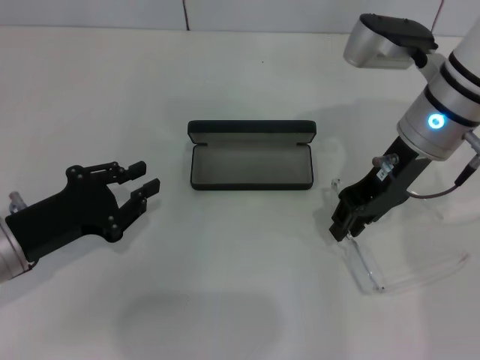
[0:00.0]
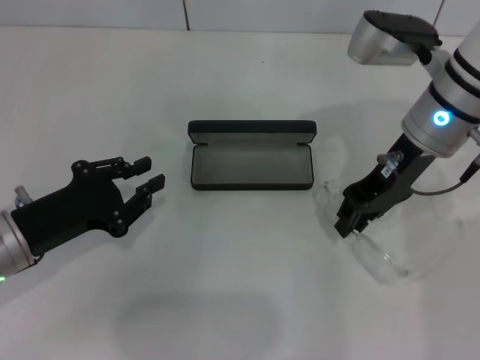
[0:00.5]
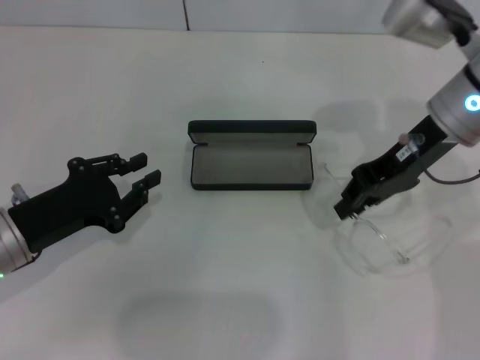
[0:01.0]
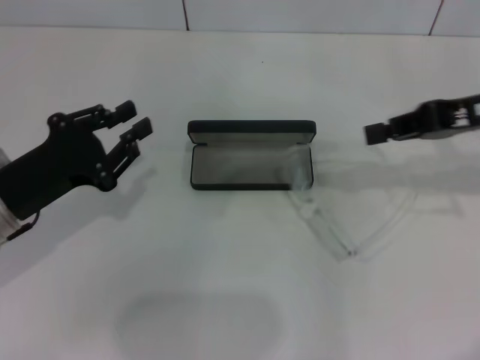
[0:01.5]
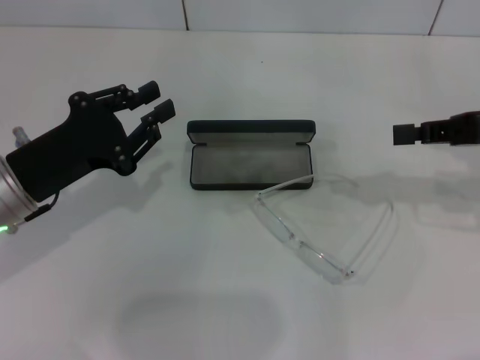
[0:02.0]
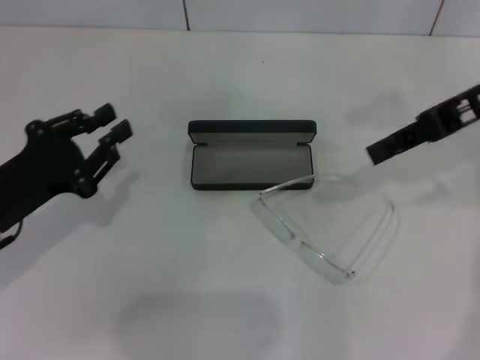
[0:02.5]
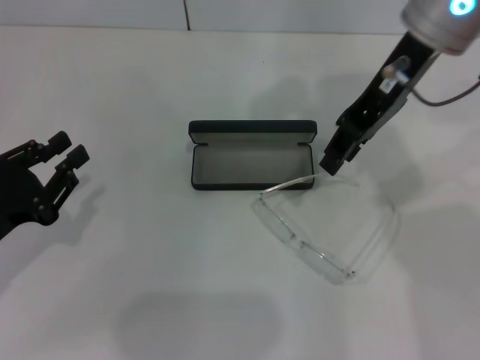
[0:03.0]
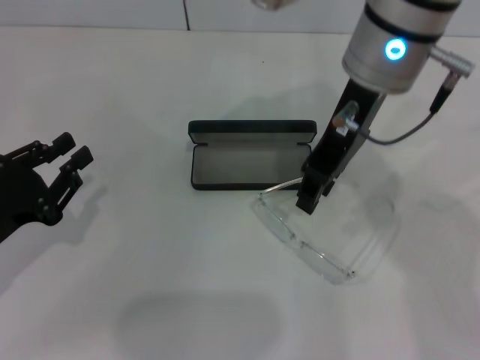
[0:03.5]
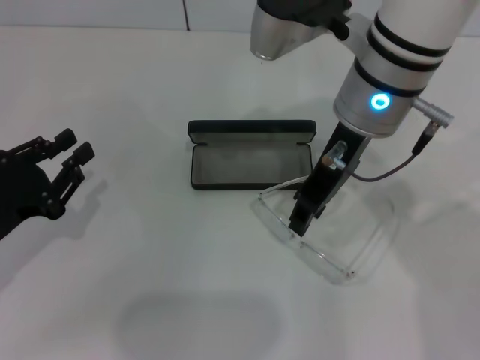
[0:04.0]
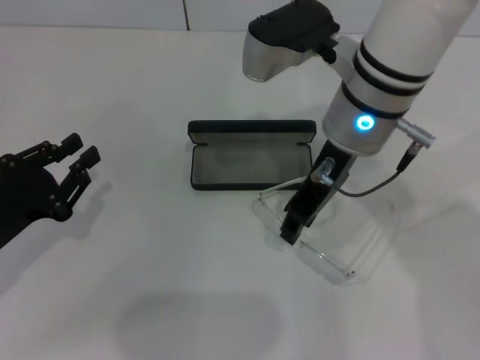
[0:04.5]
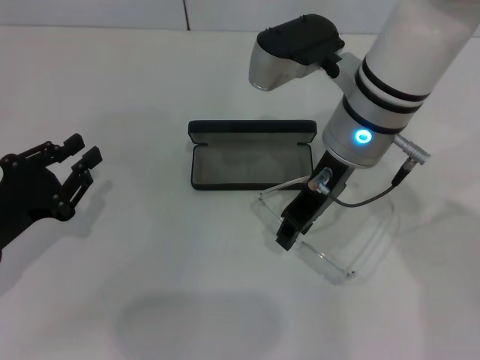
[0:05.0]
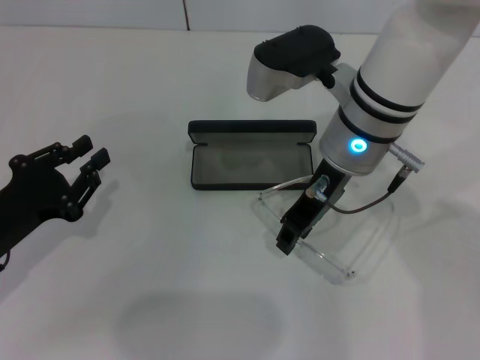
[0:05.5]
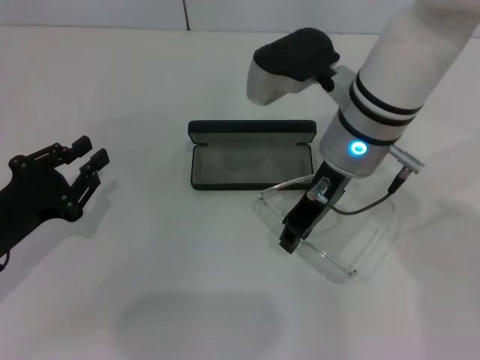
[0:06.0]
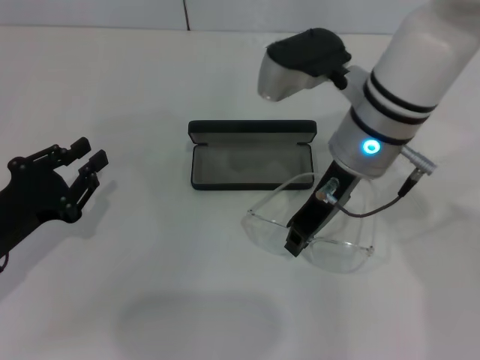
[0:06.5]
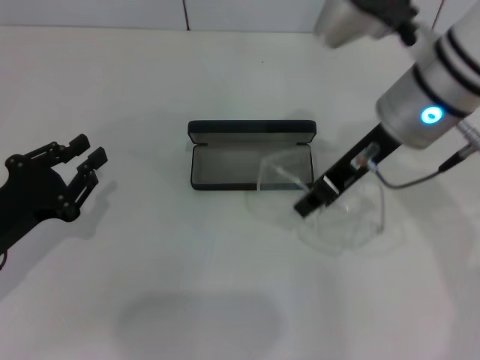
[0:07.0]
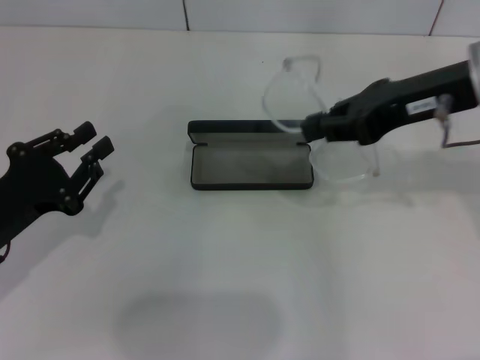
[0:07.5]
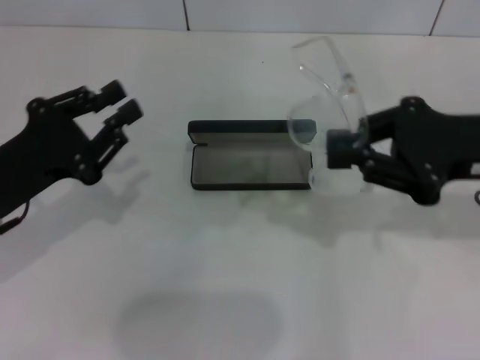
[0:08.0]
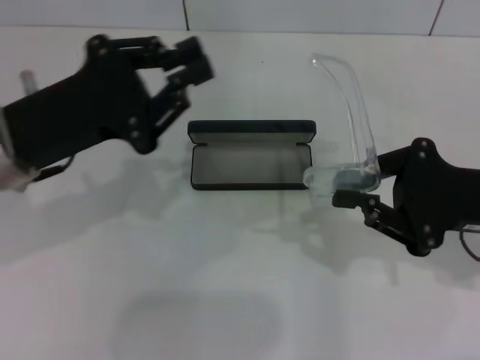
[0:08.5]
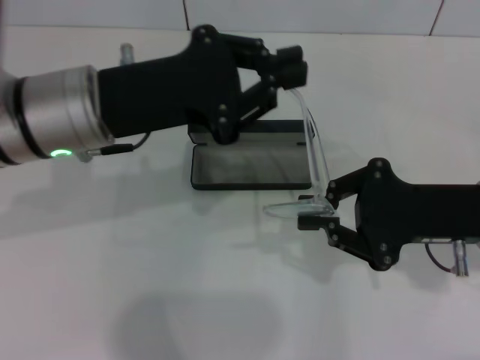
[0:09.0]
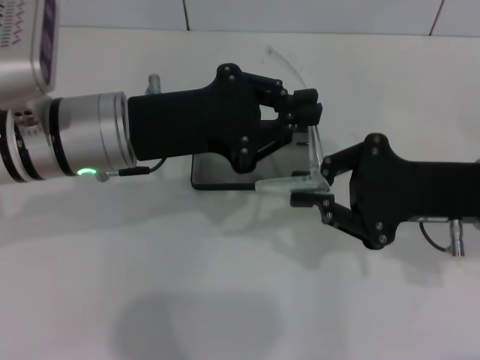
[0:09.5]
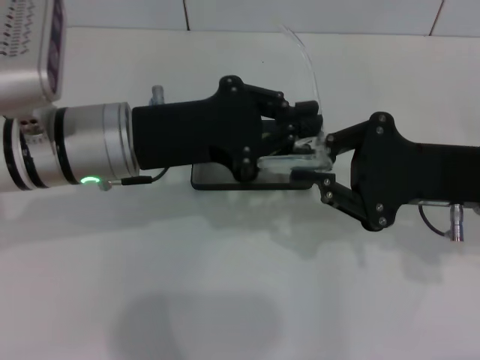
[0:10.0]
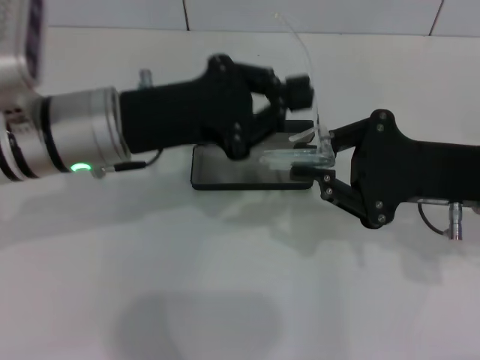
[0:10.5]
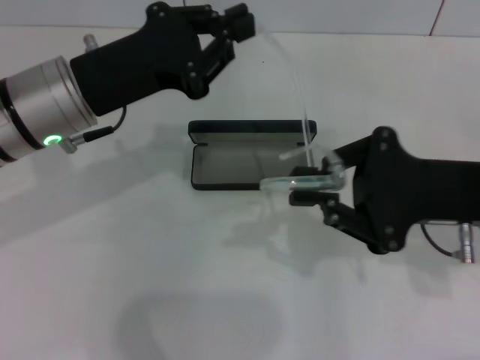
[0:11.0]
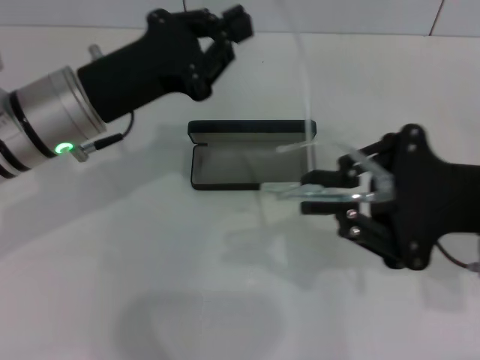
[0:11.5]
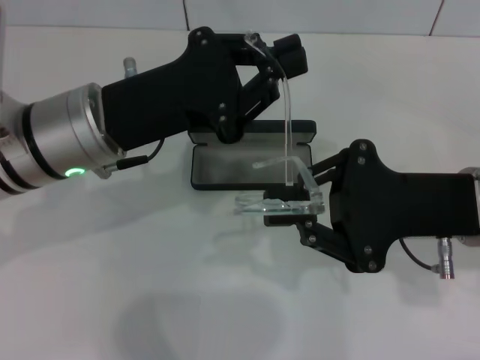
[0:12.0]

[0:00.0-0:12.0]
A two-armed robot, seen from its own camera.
Step, 0:00.0 to 0:06.0: Grab the eyeglass frame with your right hand.
0:00.0 to 0:02.0: The left gripper ends up roughly 5 cm from where it was; the right gripper is displaced to the right and backward by about 15 cm.
0:02.0 to 0:04.0: The left gripper shifts approximately 10 cm to the left and backward; the right gripper goes about 20 cm to the left, and opens.
0:04.0 to 0:06.0: The right gripper heads downward, covering about 5 cm.
0:06.0 to 0:08.0: The right gripper travels to the right by about 15 cm. The left gripper shifts about 5 cm upward.
0:08.0 to 0:10.0: The left gripper shifts approximately 15 cm to the right, forward and upward.

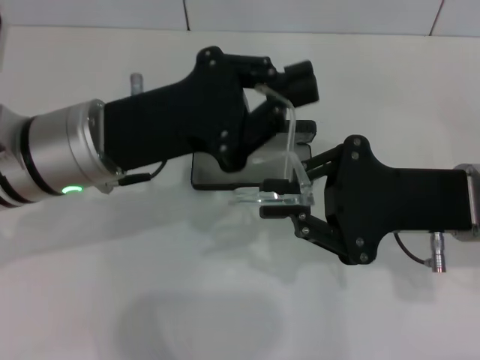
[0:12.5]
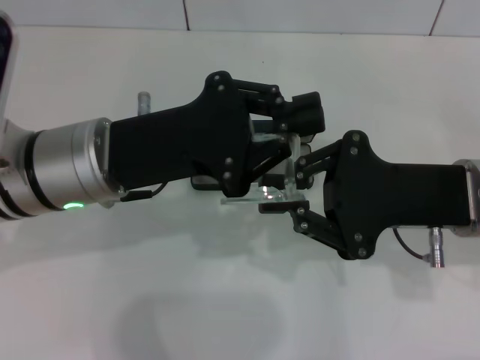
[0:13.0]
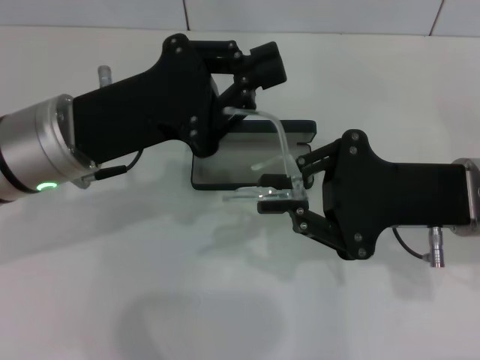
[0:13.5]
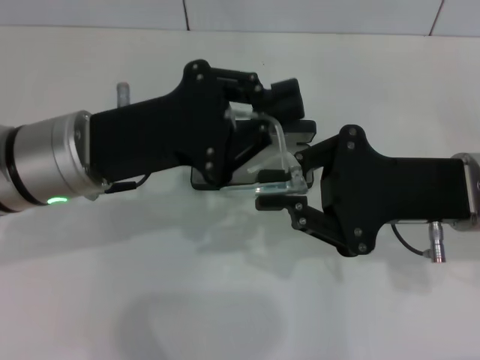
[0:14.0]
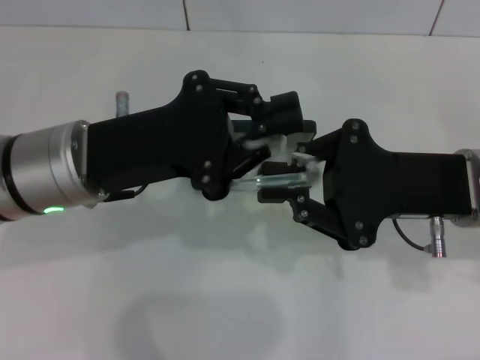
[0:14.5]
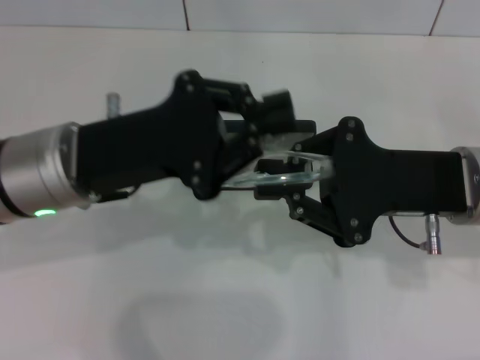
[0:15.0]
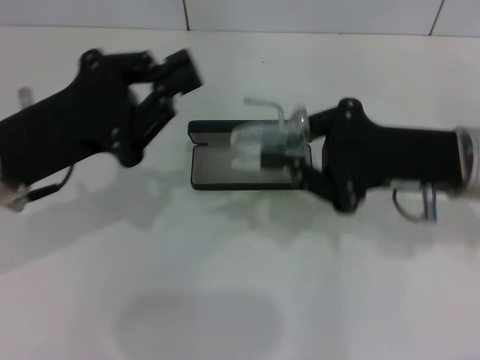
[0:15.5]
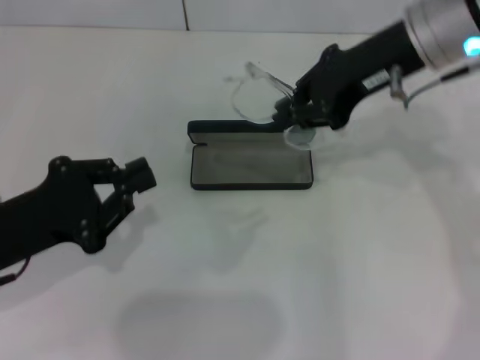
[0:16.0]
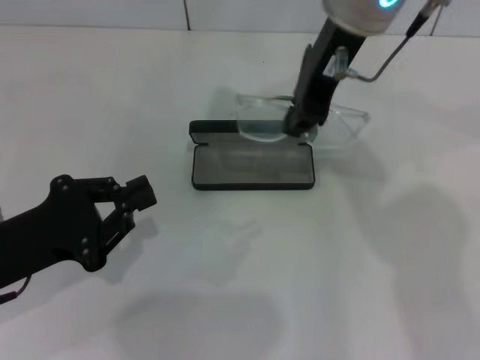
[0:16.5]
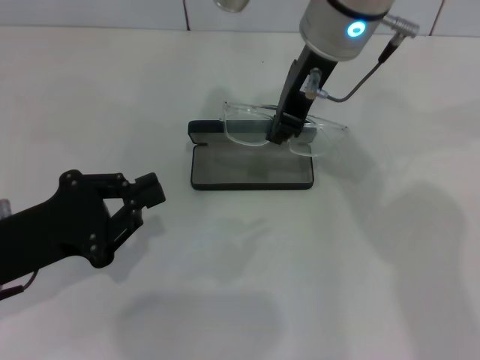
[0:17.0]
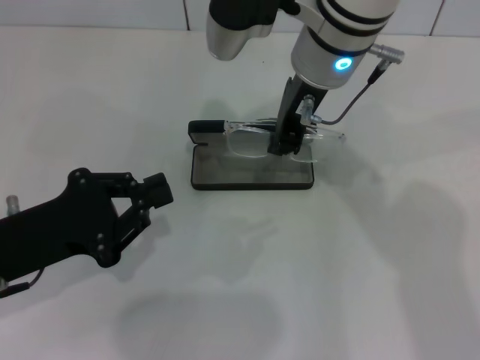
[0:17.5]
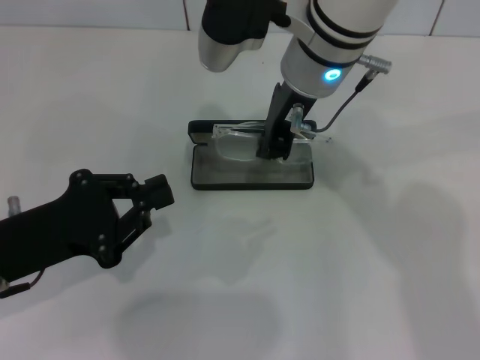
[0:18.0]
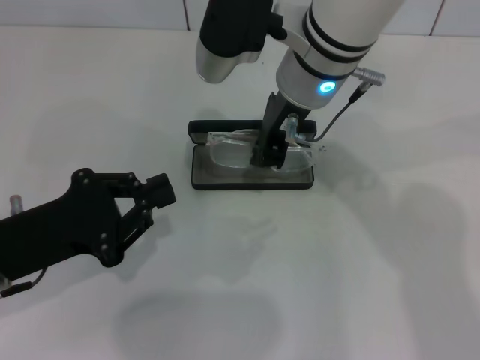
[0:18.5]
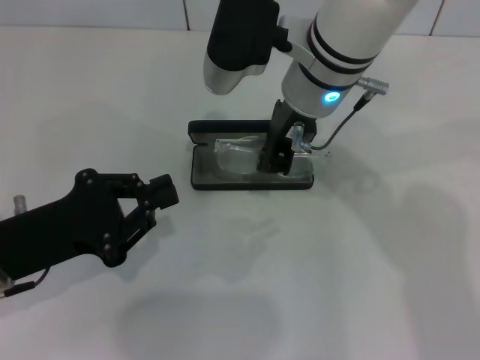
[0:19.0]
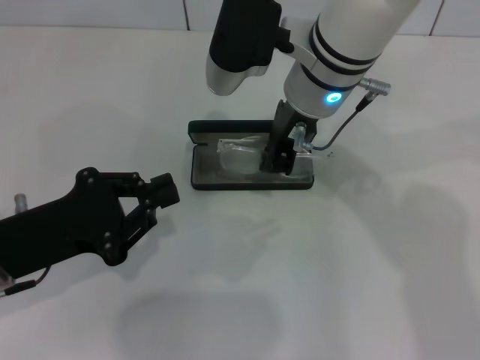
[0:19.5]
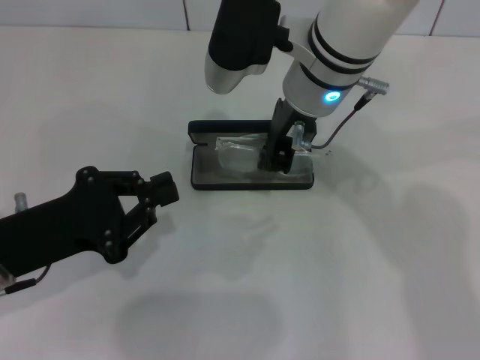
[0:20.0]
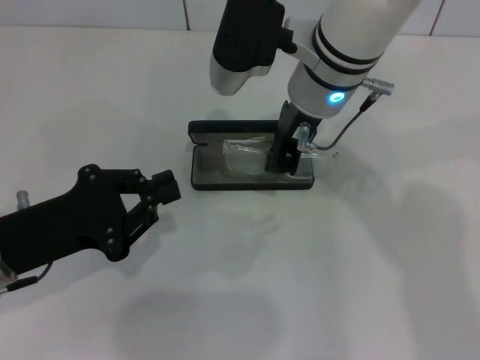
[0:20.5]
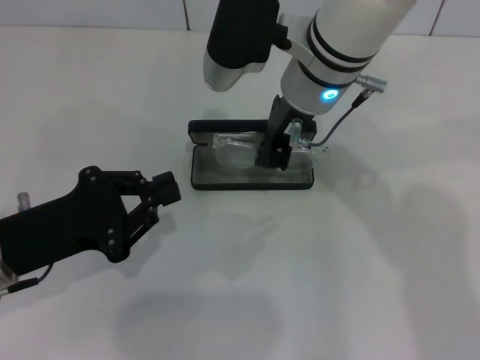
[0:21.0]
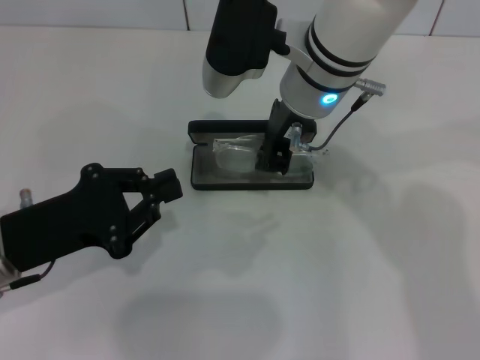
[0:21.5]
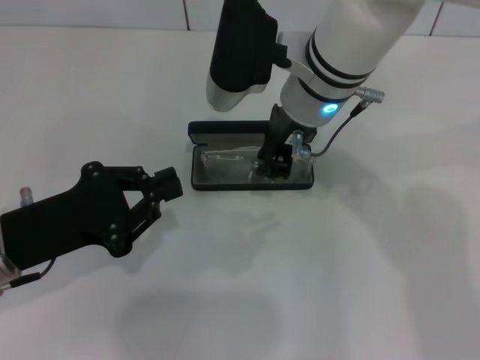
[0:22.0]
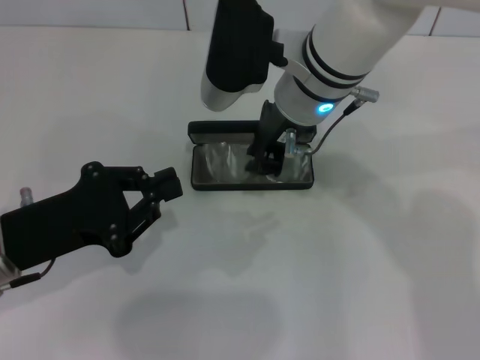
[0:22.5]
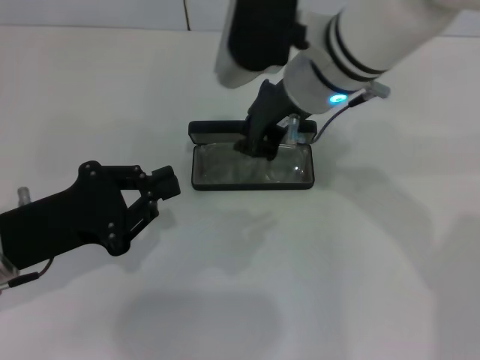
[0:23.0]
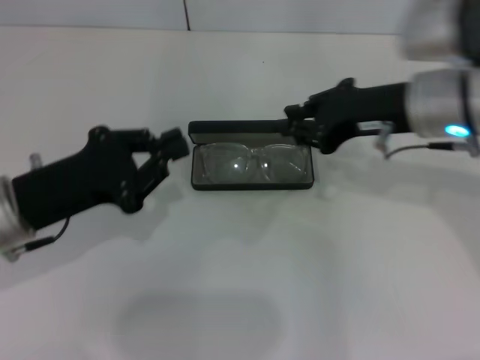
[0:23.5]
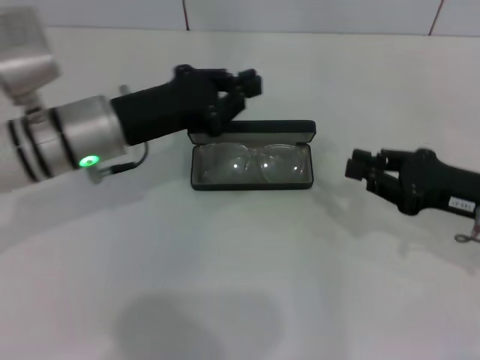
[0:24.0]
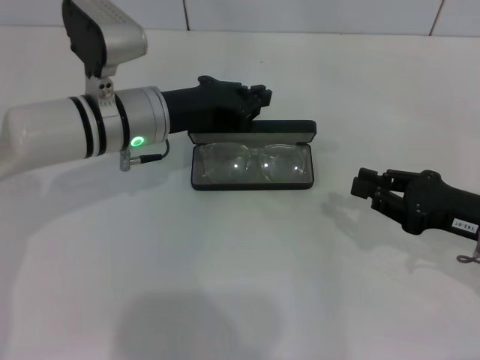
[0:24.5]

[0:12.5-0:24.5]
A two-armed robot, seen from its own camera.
Step, 0:12.5 to 0:14.5: Fold the frame with your left hand.
Step, 0:15.0 to 0:22.5: Put the glasses into the case with your right hand.
0:12.5 to 0:14.5: The grippers stay close to where they were, moving slightly.
0:14.5 to 0:16.5: The right gripper heads upward, to the left and forward, covering some 20 cm. The left gripper shifts about 15 cm to the left, backward and downward.
0:16.5 to 0:18.5: The right gripper heads downward, covering approximately 5 cm.
0:18.5 to 0:22.5: The grippers stay close to where they were, moving slightly.
0:22.5 to 0:24.5: The left gripper moves forward and to the right, approximately 20 cm. The right gripper moves to the right, downward and backward, some 30 cm.

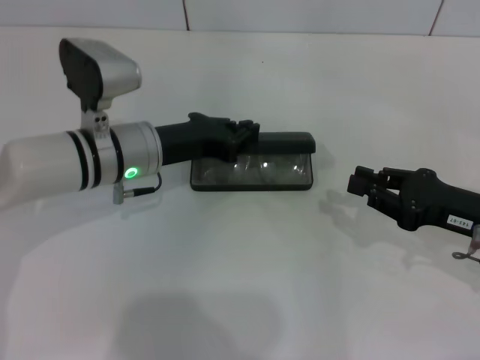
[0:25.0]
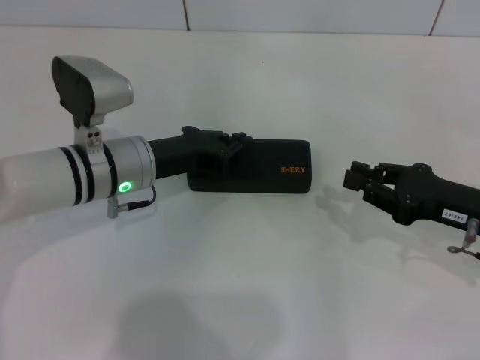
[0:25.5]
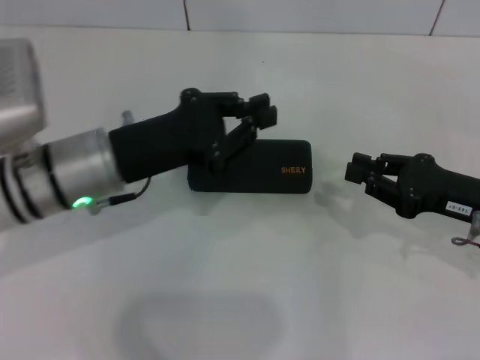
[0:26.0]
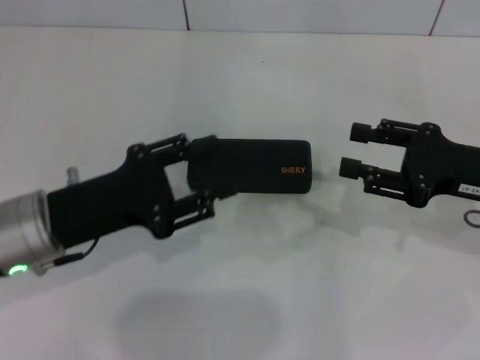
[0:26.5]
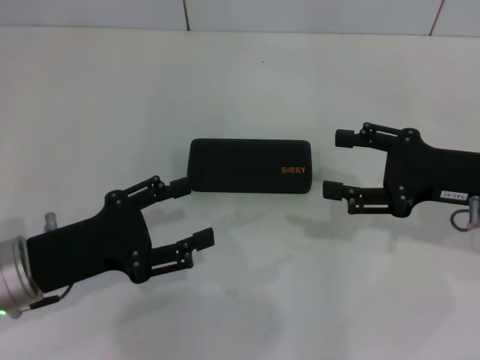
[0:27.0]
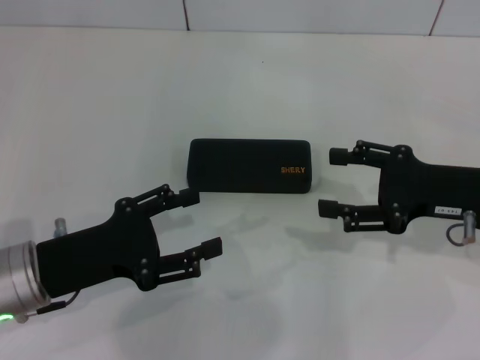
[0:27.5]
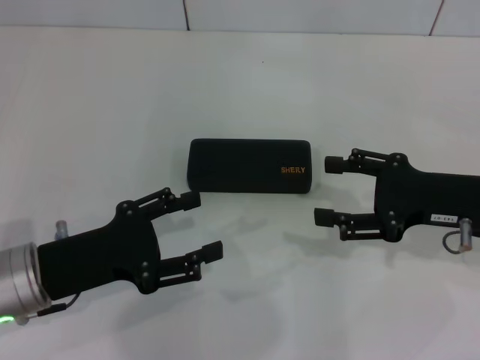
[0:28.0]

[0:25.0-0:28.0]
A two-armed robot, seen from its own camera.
0:25.0 to 0:26.5: The left gripper heads backward and to the left, covering approximately 15 cm, and opens up; the right gripper shifts by roughly 5 cm.
0:26.5 to 0:28.0: The right gripper opens, while the left gripper opens up.
